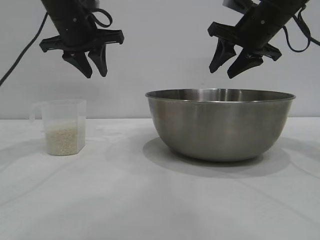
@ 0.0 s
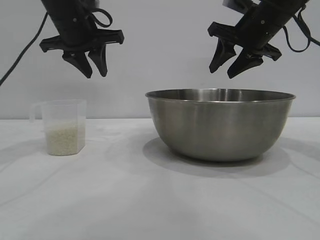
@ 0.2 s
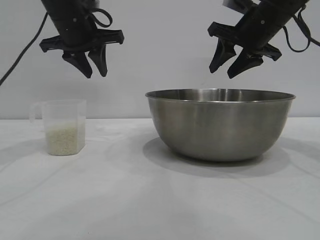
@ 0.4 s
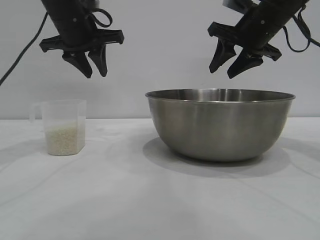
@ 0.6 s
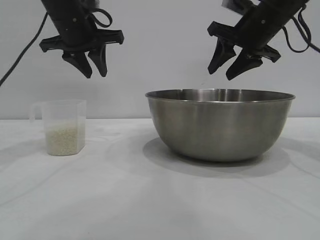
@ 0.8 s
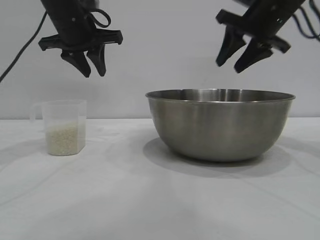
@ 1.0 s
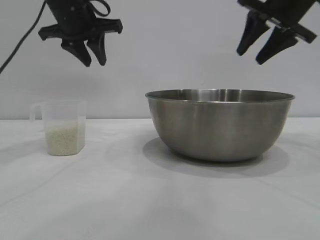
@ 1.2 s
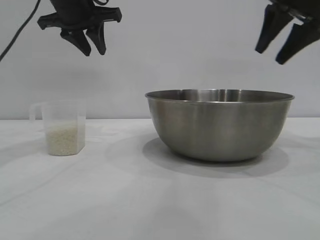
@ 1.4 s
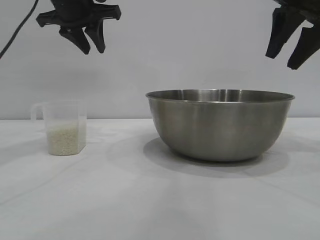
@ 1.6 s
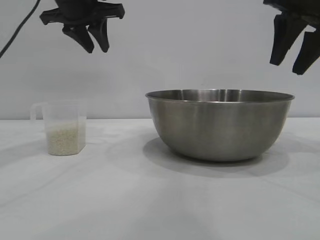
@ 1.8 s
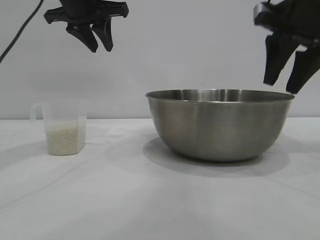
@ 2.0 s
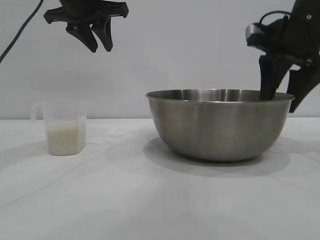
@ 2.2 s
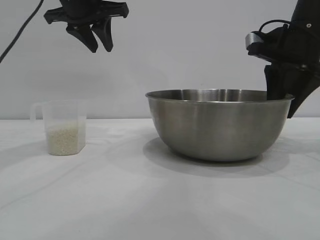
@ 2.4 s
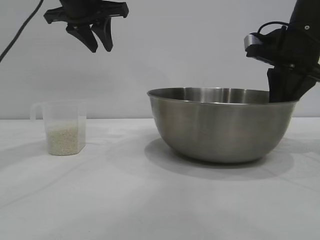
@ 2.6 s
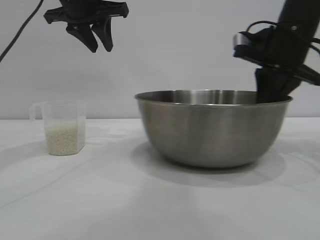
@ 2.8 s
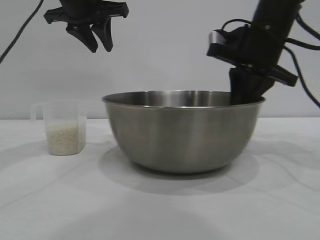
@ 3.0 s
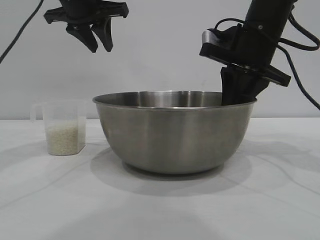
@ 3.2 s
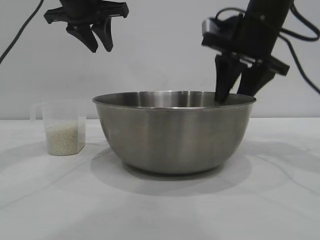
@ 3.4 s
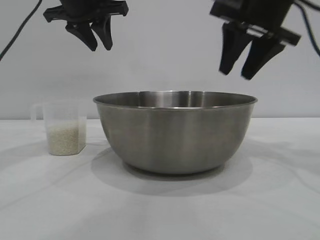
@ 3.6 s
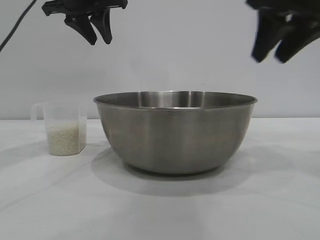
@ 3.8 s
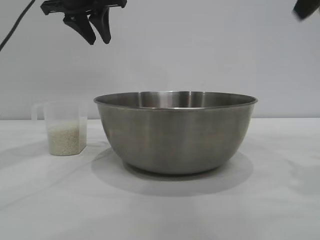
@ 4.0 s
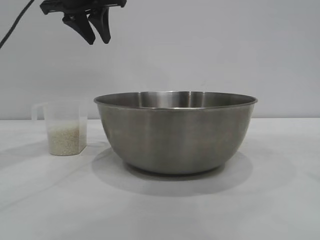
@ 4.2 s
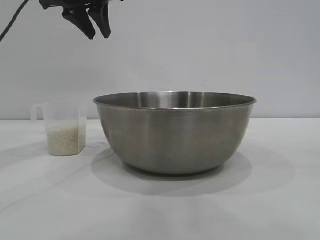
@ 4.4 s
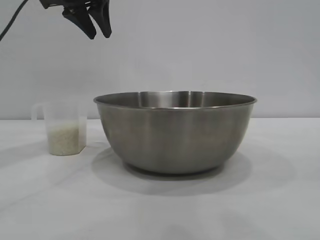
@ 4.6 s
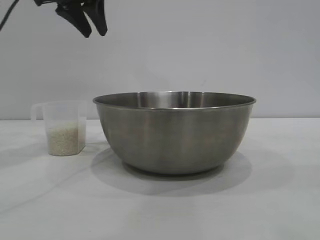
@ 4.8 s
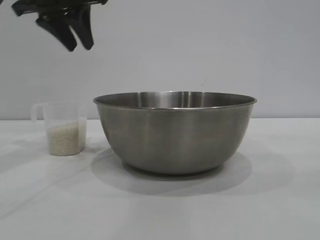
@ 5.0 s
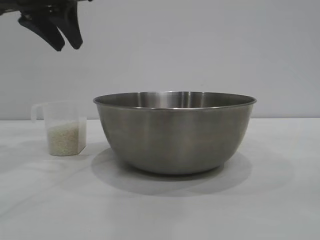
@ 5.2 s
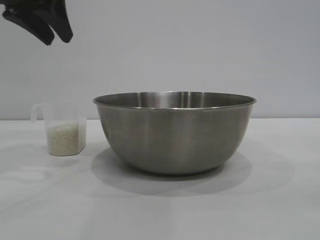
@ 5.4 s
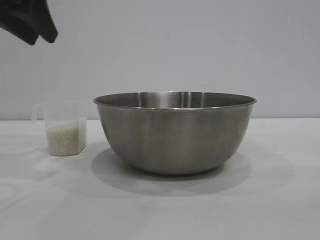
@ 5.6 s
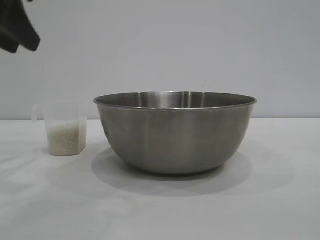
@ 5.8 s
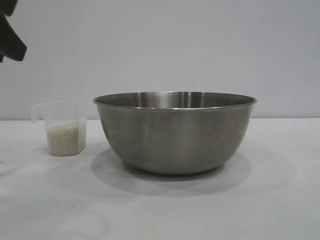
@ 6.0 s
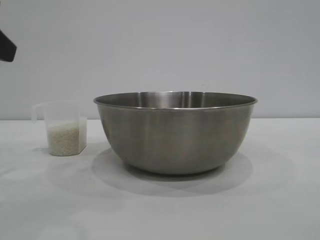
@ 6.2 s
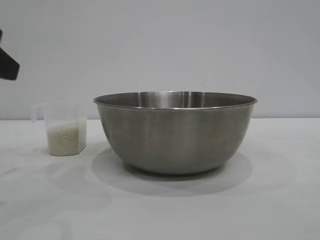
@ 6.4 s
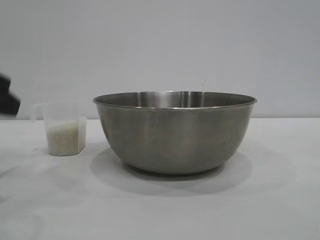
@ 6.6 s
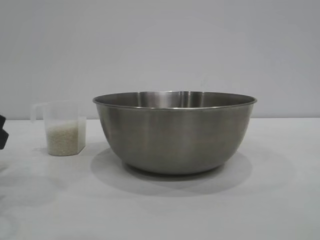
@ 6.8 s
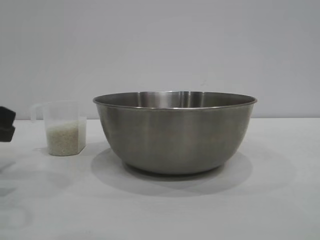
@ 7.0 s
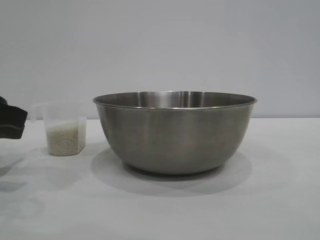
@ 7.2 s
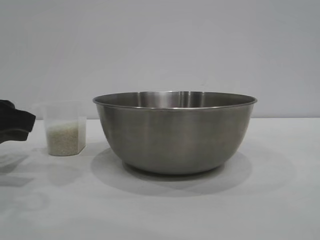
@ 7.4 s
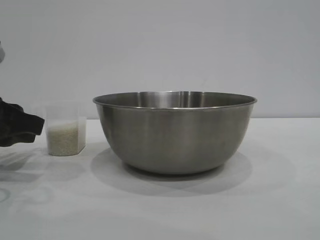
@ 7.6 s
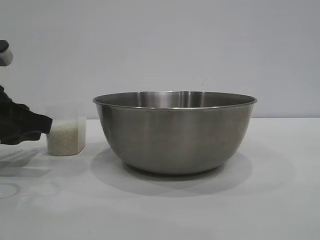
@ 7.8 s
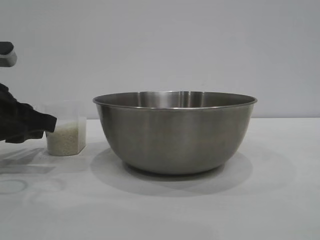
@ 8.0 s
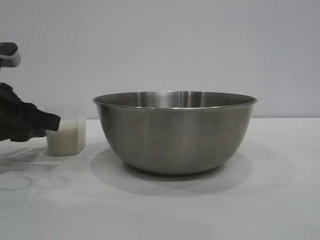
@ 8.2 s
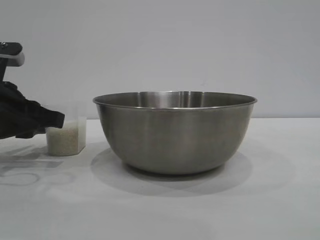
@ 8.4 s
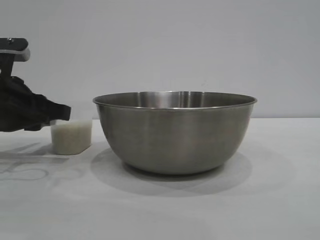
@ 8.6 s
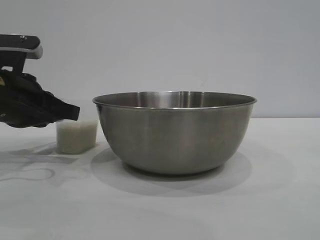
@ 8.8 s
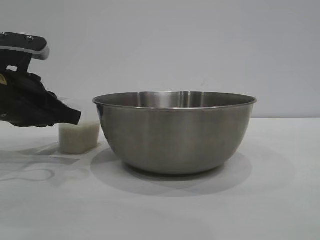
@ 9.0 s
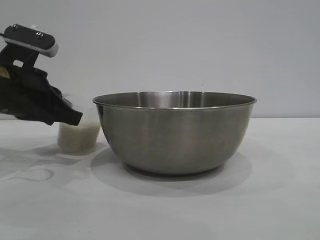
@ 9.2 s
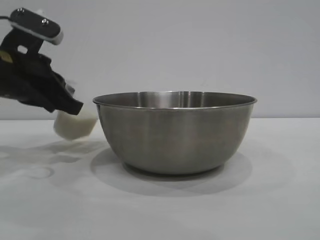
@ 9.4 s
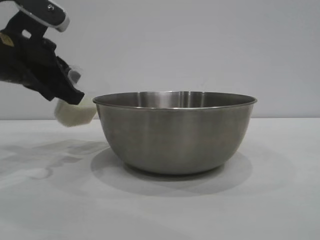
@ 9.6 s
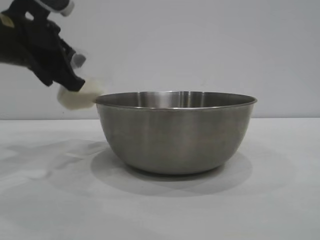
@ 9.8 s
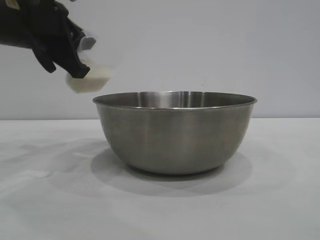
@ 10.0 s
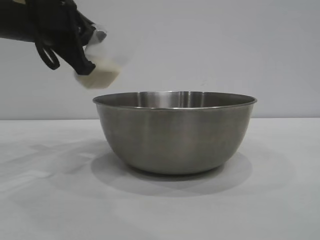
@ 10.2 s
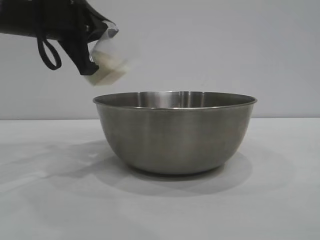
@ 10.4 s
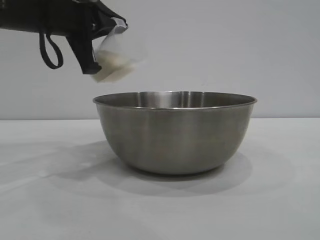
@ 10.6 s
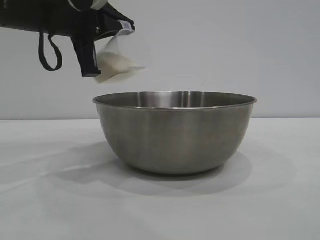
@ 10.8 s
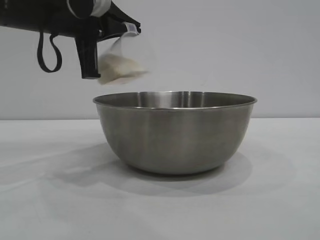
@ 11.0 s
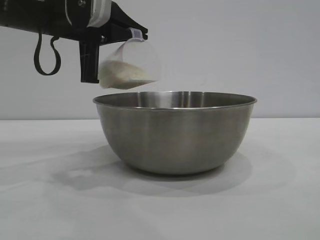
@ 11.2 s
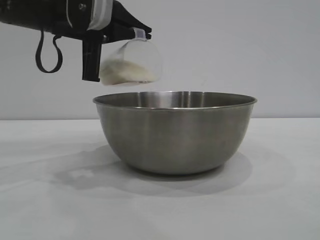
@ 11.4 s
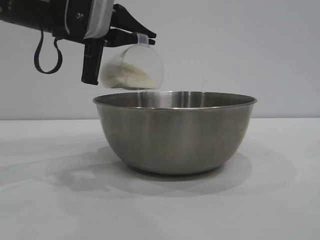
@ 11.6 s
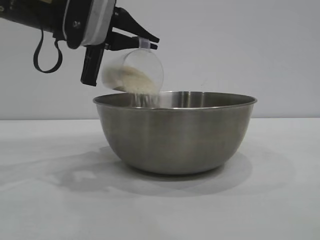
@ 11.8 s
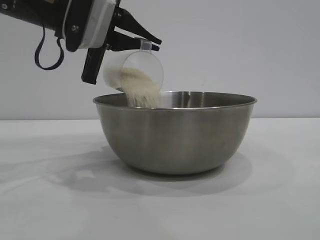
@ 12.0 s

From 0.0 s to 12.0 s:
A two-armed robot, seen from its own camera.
Task of the whole recording: the right gripper grasp the rice container and place it in the center of the table, the left gripper grasp the rice scoop and pour the rice into the rice container.
Step, from 0.0 s to 3.4 s: Move the bowl to the center of view with the right gripper.
Step, from 3.6 s to 9.4 s: Pick up the cup with rice in it with the left gripper.

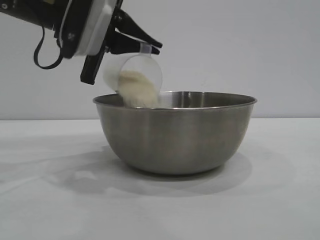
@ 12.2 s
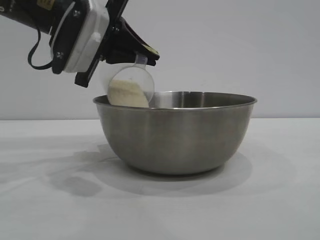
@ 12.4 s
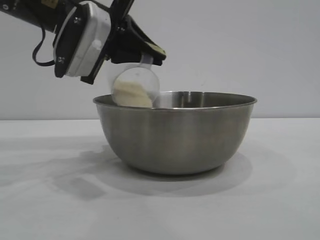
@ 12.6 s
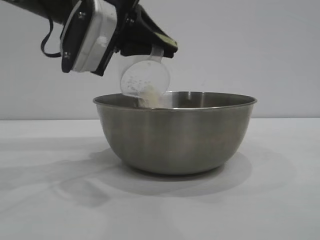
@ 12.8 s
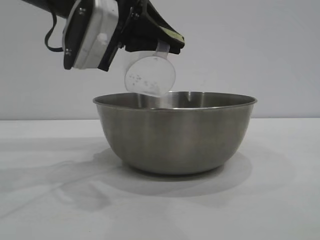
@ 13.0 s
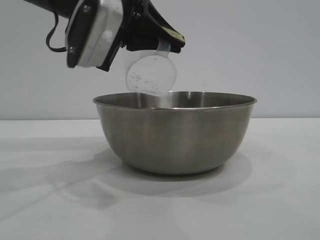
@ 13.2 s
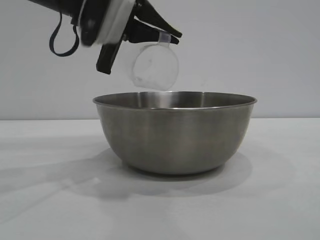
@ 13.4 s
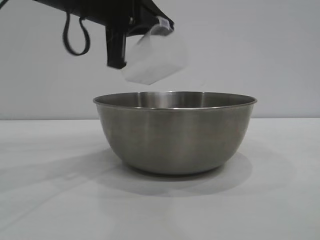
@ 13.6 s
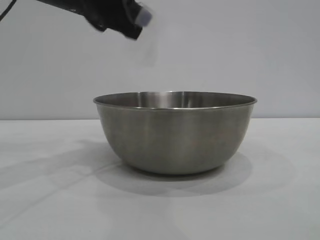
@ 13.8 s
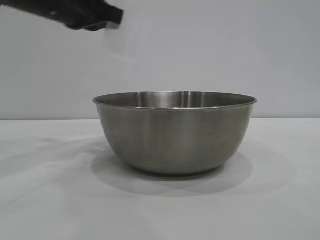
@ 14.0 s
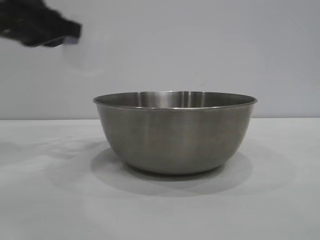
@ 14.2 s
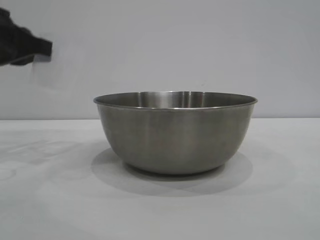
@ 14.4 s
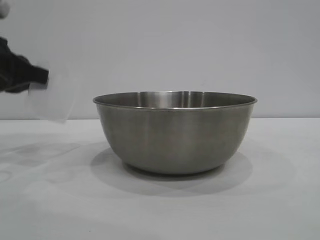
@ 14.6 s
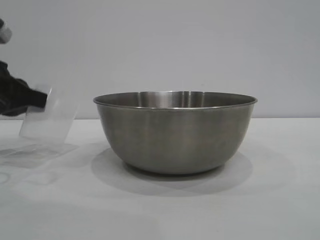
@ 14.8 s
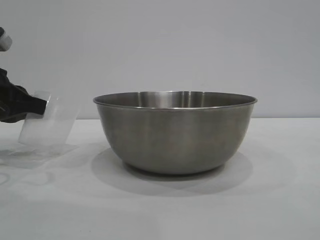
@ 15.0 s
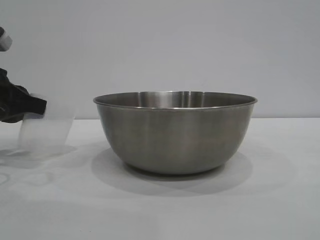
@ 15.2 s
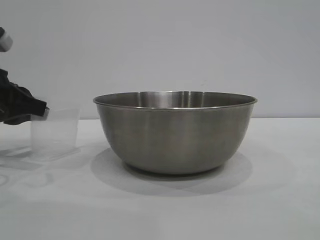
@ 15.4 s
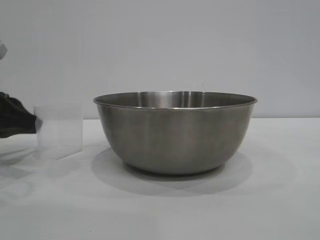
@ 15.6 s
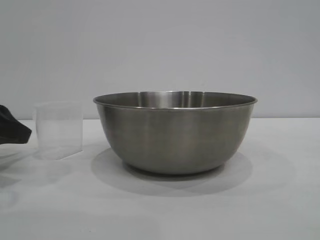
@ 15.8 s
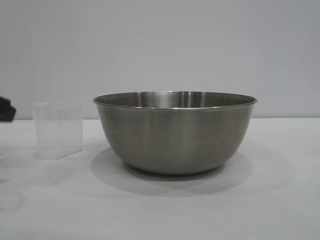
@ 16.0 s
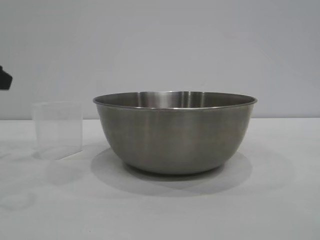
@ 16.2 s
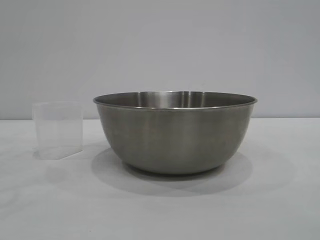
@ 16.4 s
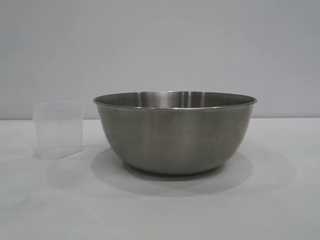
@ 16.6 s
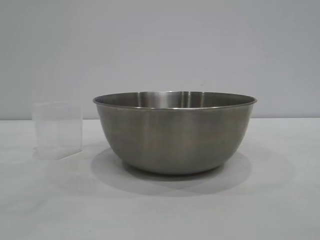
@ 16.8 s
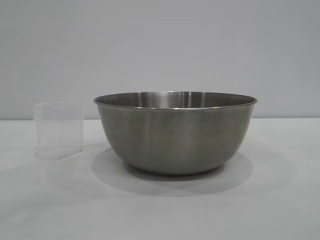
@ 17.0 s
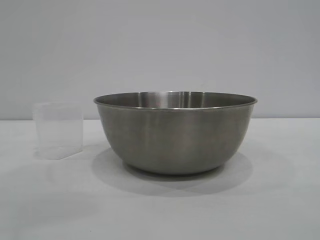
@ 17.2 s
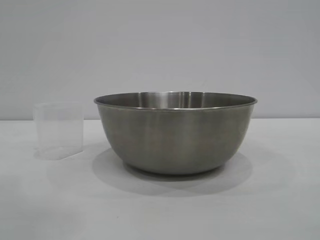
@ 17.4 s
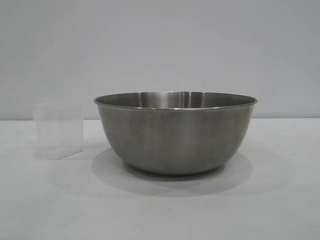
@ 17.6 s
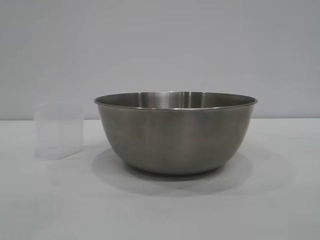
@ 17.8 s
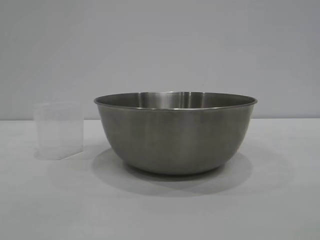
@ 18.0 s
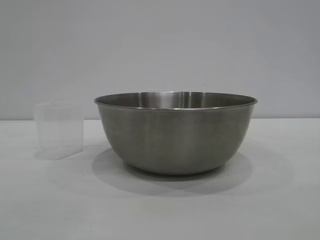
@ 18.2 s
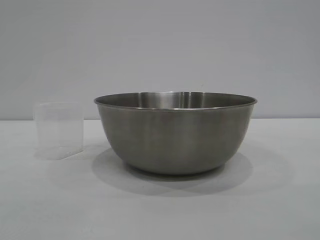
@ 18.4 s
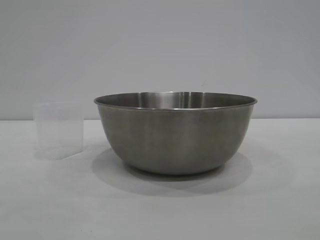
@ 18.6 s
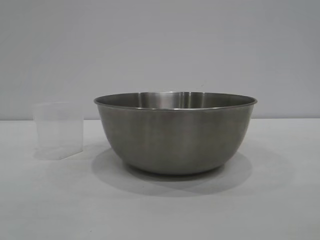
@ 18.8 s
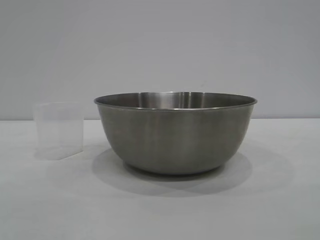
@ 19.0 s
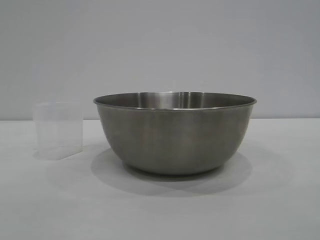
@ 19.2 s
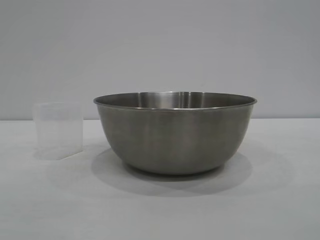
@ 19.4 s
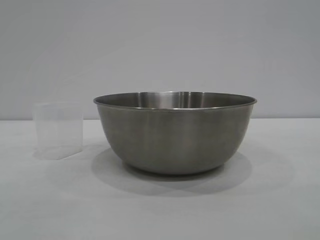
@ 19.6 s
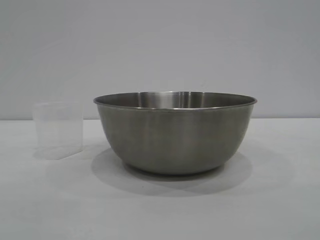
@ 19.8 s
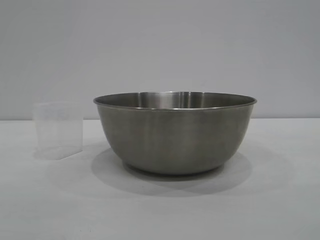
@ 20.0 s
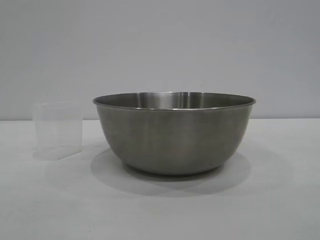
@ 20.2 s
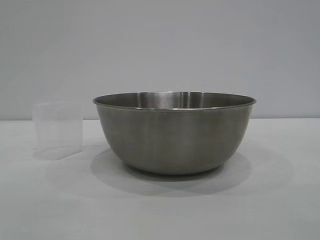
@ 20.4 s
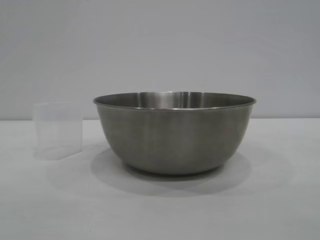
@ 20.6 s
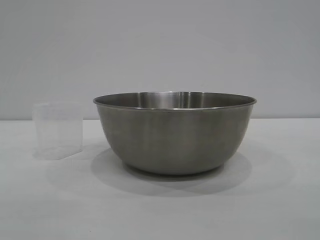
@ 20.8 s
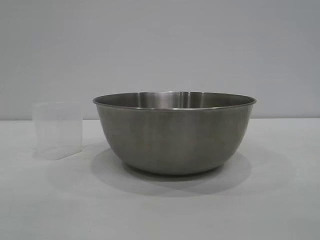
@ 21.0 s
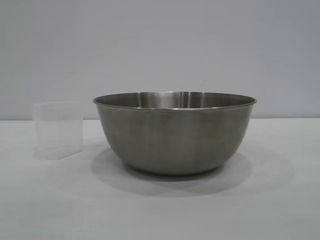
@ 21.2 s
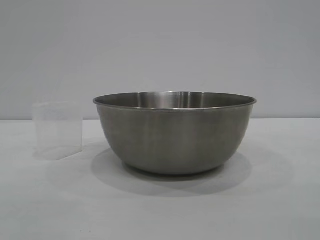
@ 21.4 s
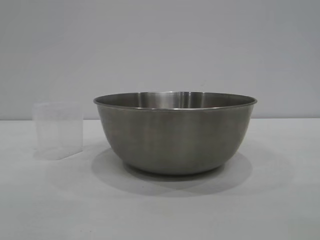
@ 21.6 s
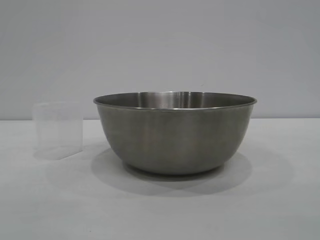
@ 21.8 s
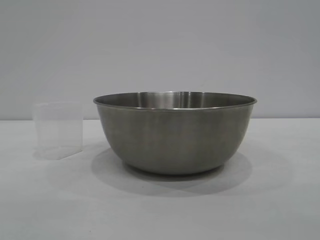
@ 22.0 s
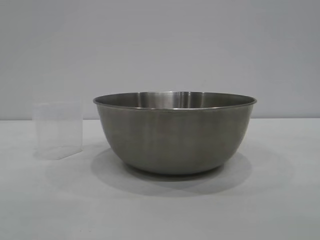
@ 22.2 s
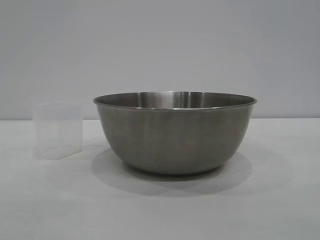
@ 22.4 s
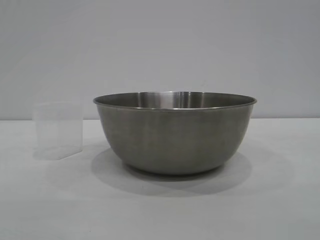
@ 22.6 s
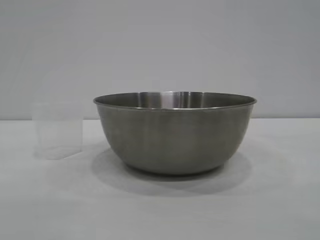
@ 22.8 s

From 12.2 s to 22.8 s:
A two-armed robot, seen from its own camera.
Task of the whole recording: the right gripper grasp the rice container and place it in the center of the table, the left gripper grasp the rice scoop and pour the rice into the rice container.
Step, from 13.2 s to 15.8 s: Place the cup on the table with the left gripper.
